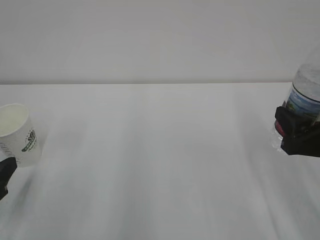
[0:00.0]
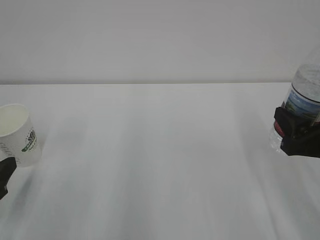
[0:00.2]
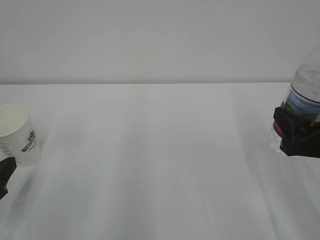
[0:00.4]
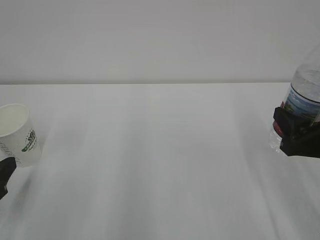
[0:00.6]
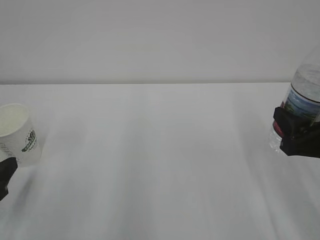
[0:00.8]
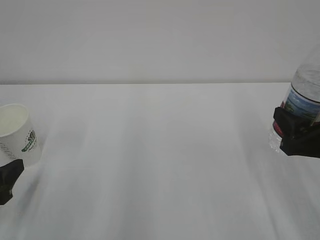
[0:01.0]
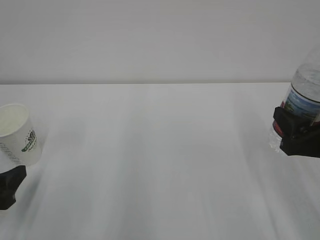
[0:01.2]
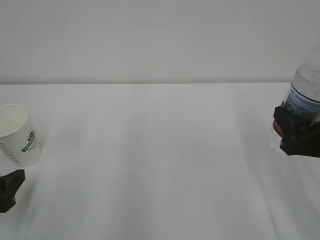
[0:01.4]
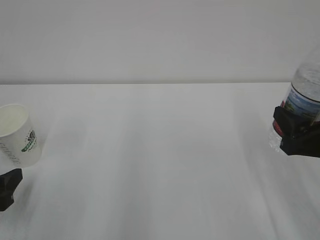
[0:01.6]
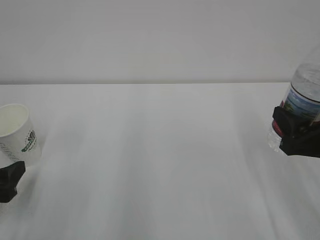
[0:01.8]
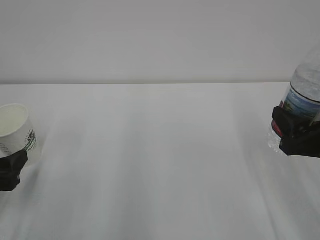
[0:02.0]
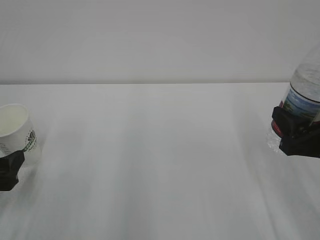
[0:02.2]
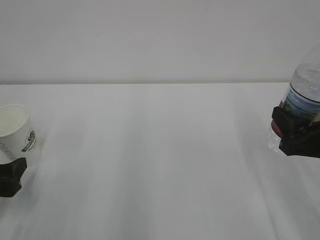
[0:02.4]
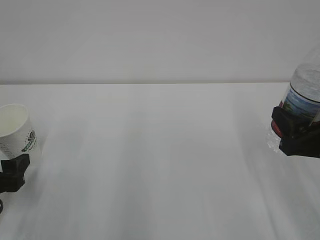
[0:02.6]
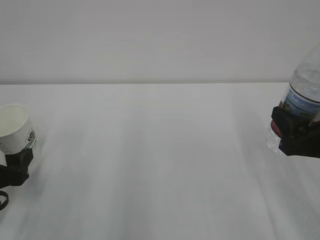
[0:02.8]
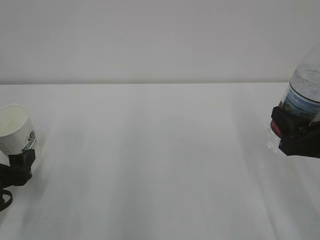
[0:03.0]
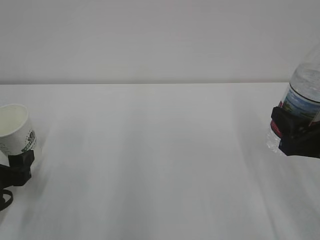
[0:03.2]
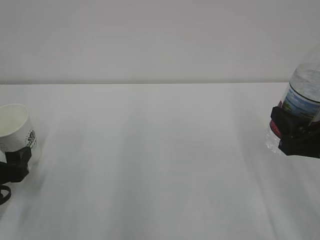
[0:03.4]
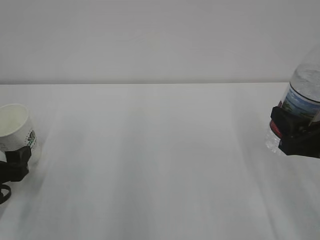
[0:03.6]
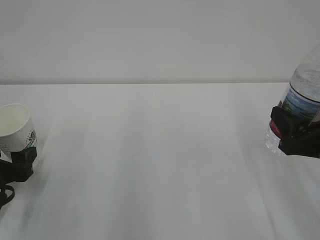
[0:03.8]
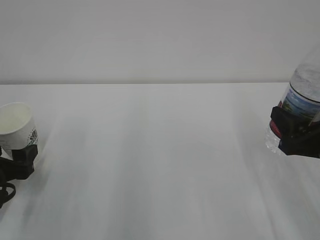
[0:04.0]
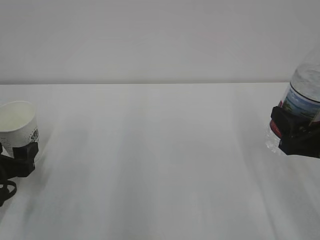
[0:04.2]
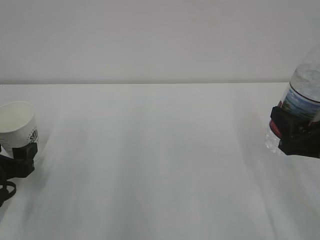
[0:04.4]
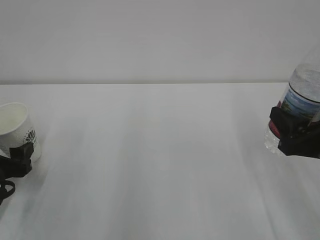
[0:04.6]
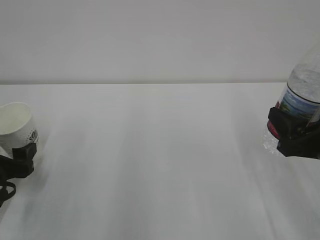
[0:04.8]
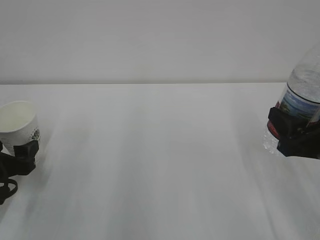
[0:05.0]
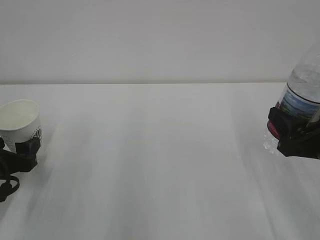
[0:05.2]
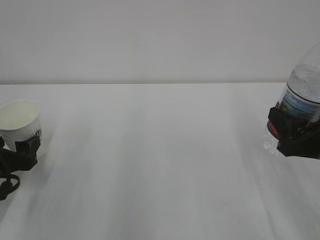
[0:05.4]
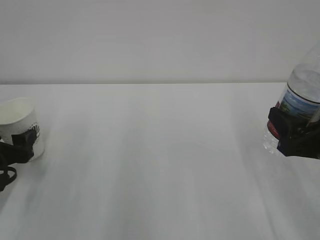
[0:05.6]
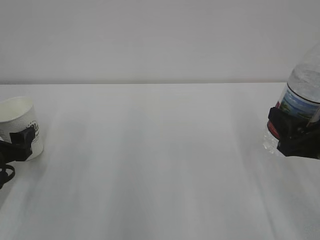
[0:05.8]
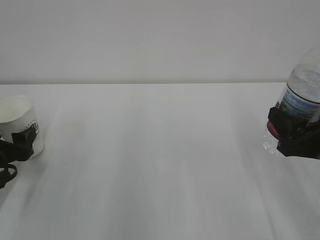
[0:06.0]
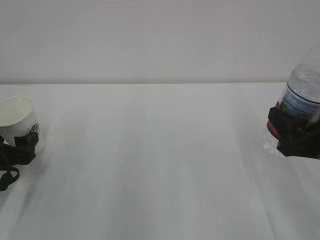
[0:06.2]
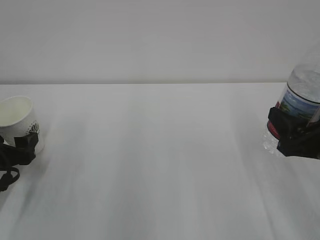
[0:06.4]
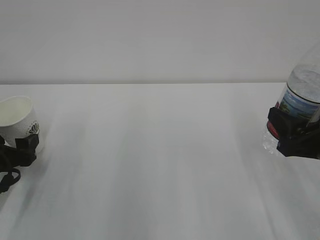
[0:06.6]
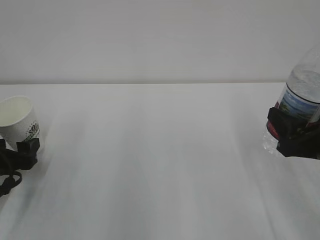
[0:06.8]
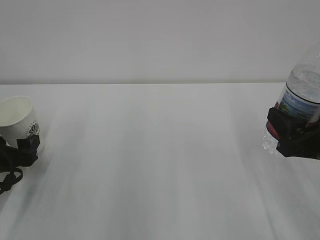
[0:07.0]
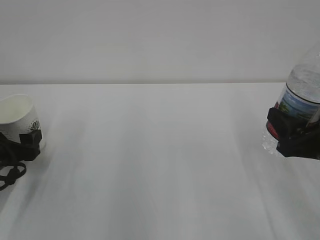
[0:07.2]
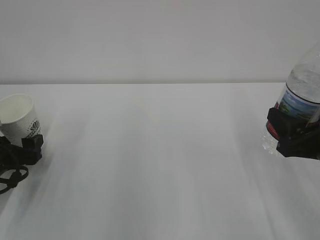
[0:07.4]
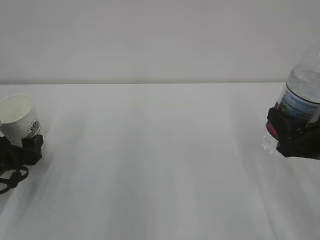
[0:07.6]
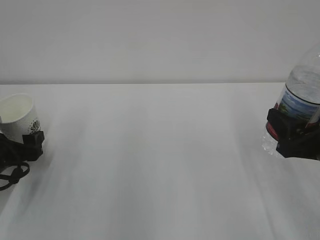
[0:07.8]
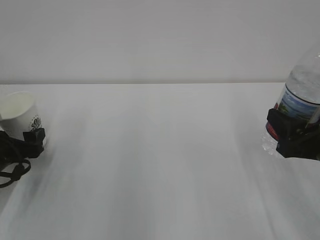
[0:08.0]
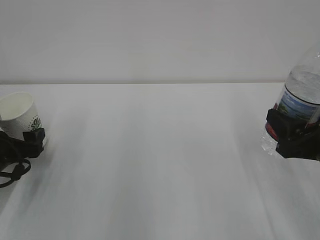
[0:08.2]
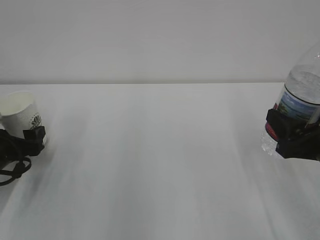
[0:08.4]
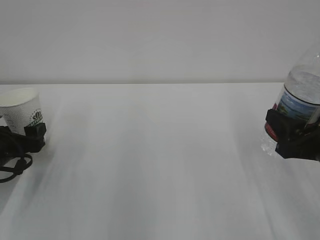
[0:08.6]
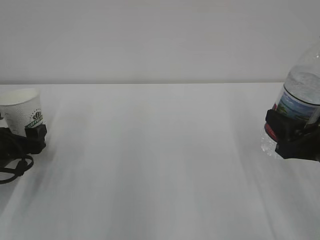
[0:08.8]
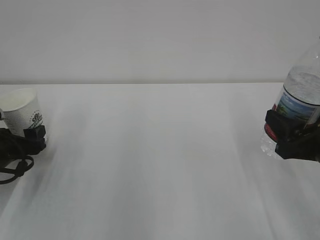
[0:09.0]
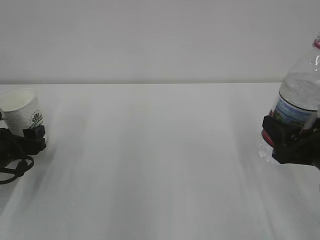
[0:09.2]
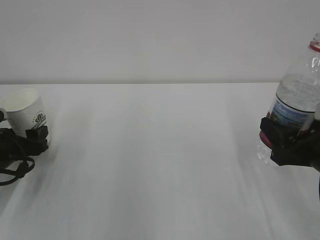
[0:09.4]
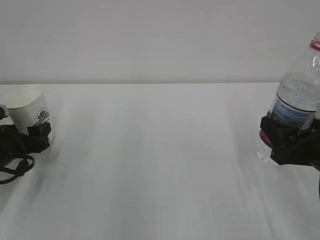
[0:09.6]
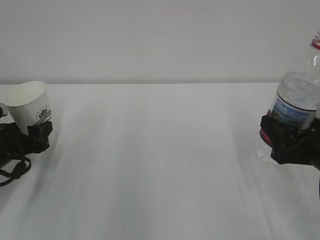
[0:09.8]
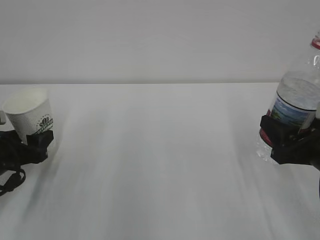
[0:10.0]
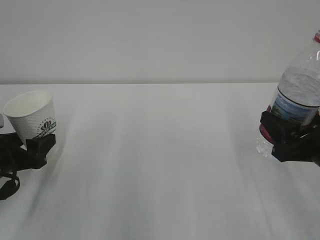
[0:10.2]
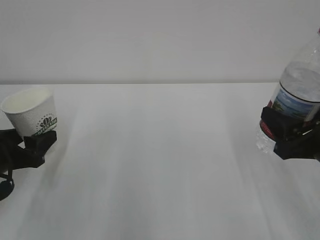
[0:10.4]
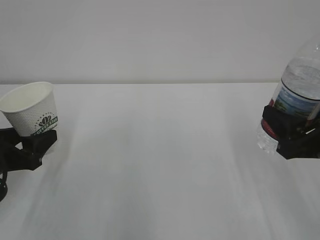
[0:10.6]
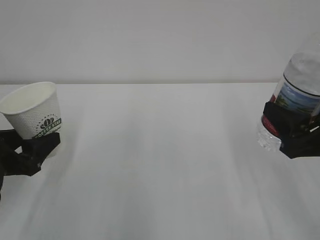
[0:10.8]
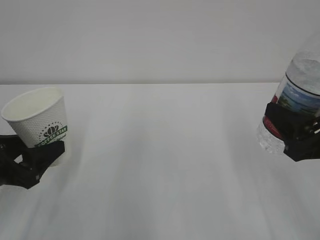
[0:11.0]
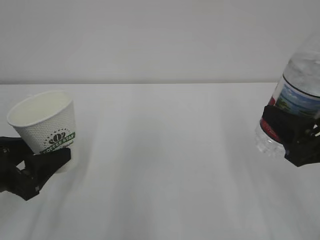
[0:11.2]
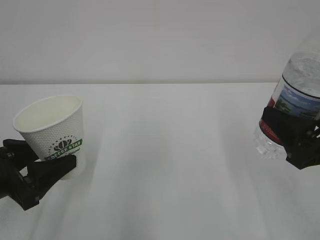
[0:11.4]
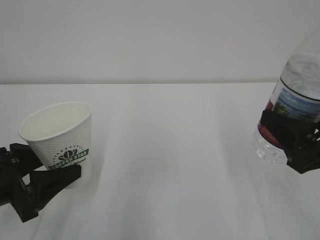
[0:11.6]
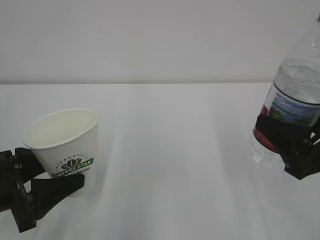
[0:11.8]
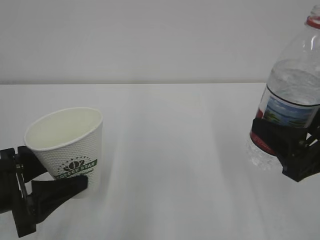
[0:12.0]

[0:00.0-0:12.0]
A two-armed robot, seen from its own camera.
0:00.0 to 0:03.0: The grippers move only a little.
0:03.0 to 0:06.0: The grippers stay close to where they were, moving slightly.
0:06.0 to 0:09.0: There are only small adjustments of the grippers.
0:09.0 to 0:10.4: The left gripper ends up some 5 cm from where it was.
0:10.4 to 0:12.0: The right gripper ends up about 5 cm from where it was, while the left gripper heads backward, covering some 5 cm.

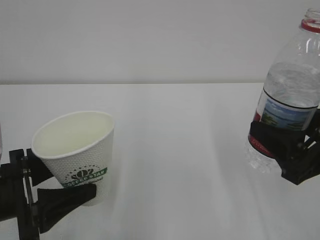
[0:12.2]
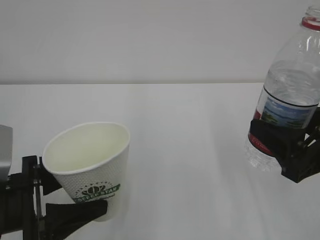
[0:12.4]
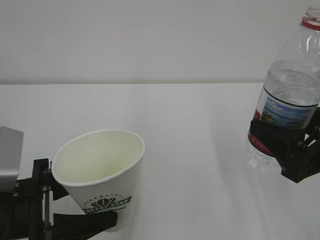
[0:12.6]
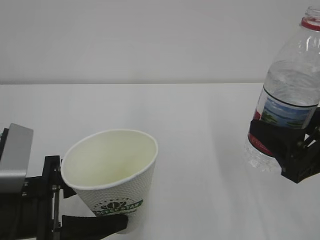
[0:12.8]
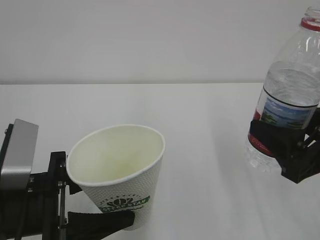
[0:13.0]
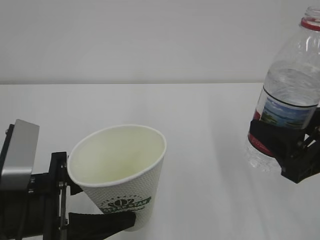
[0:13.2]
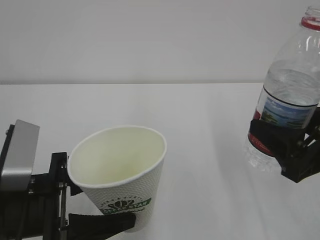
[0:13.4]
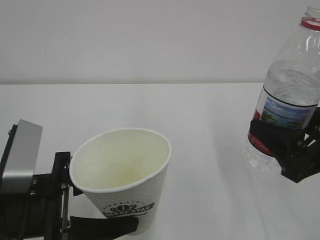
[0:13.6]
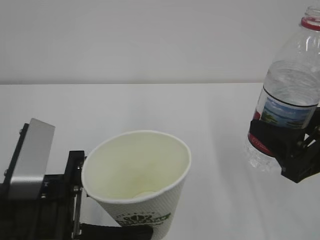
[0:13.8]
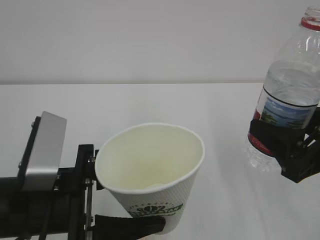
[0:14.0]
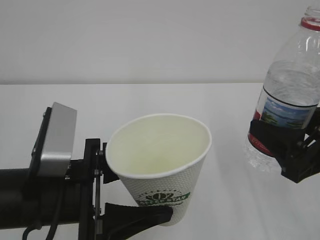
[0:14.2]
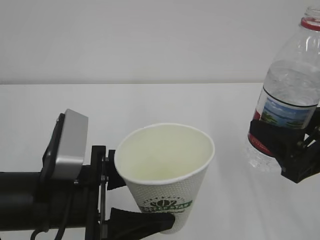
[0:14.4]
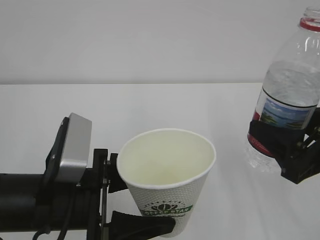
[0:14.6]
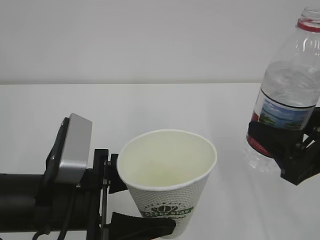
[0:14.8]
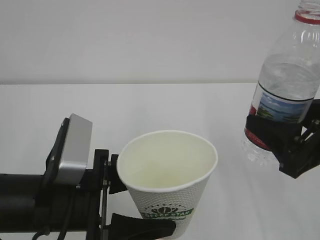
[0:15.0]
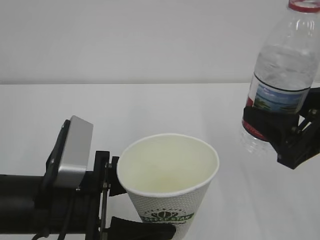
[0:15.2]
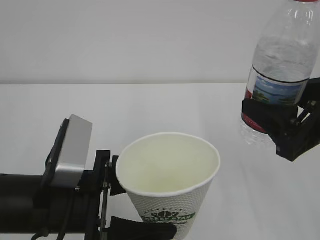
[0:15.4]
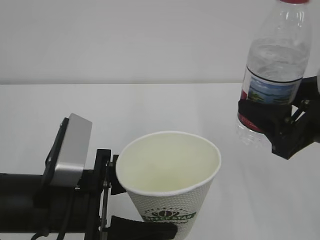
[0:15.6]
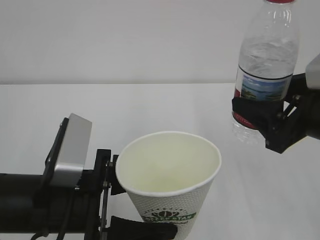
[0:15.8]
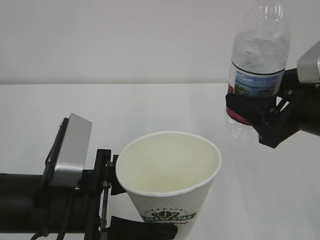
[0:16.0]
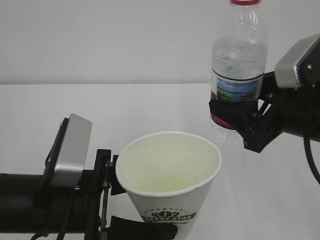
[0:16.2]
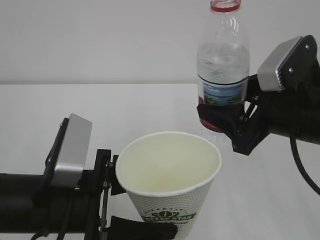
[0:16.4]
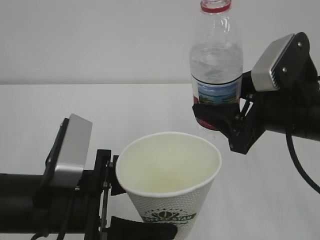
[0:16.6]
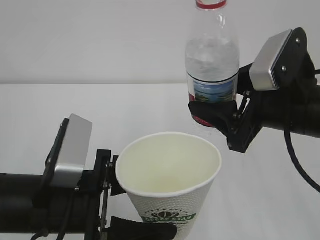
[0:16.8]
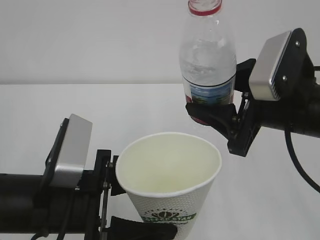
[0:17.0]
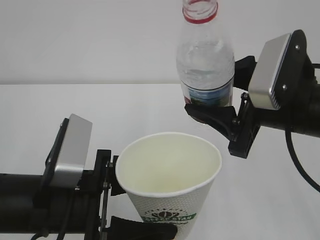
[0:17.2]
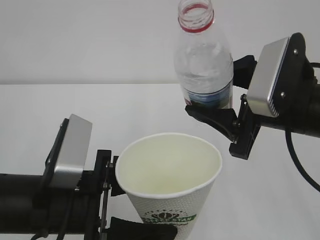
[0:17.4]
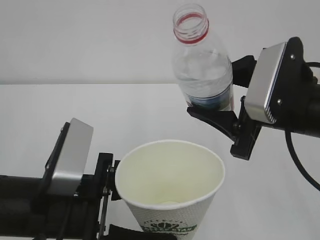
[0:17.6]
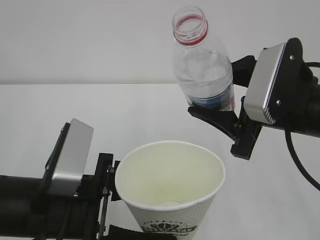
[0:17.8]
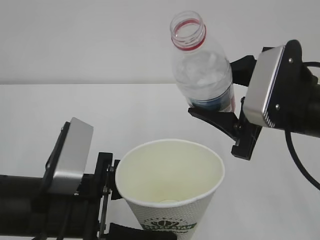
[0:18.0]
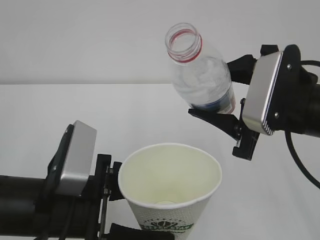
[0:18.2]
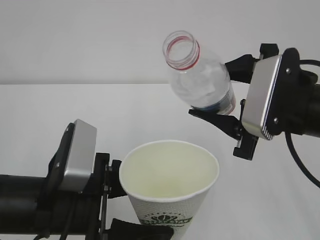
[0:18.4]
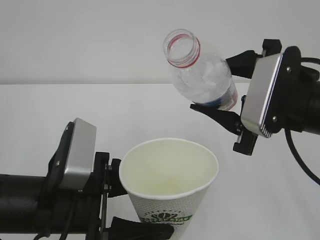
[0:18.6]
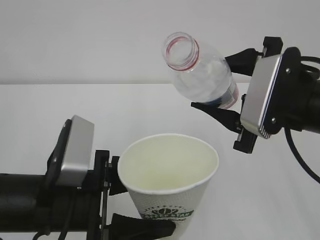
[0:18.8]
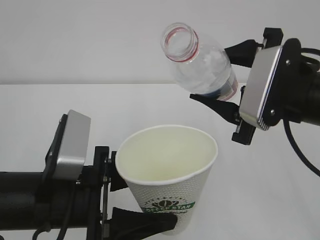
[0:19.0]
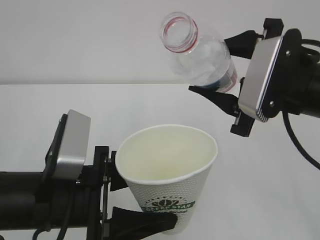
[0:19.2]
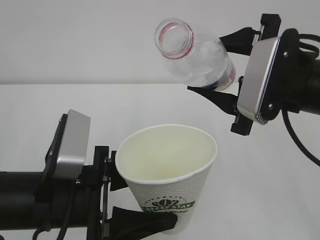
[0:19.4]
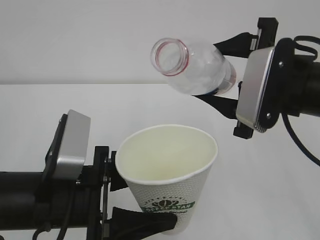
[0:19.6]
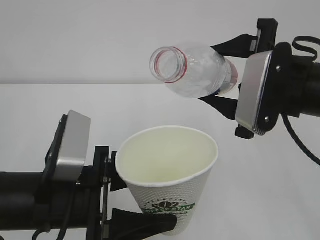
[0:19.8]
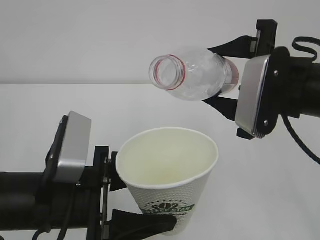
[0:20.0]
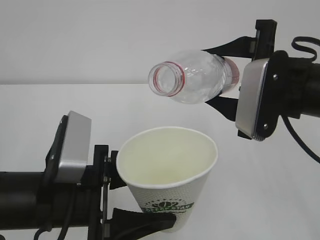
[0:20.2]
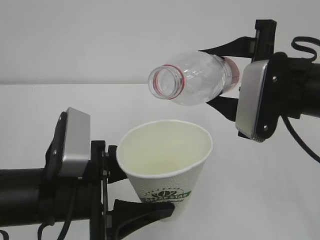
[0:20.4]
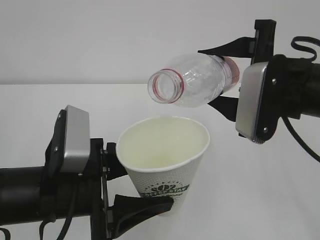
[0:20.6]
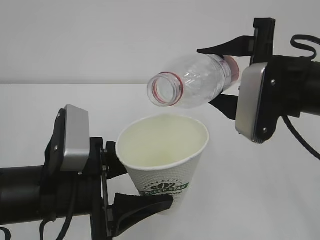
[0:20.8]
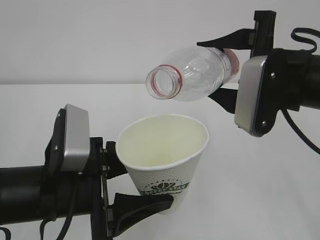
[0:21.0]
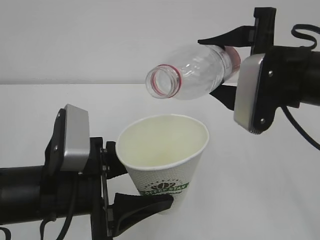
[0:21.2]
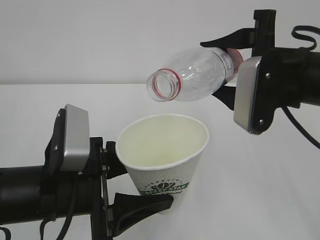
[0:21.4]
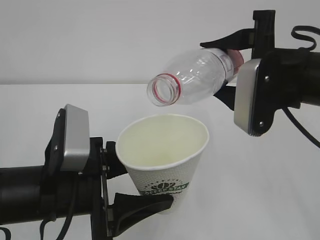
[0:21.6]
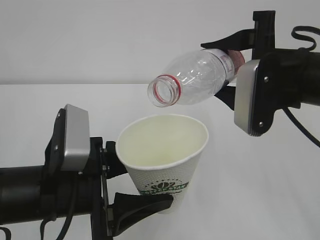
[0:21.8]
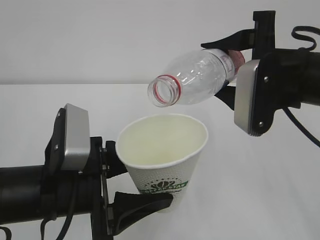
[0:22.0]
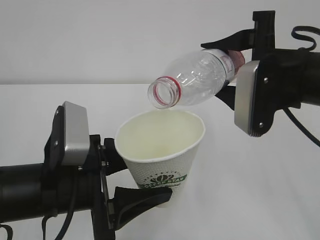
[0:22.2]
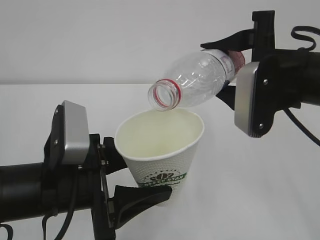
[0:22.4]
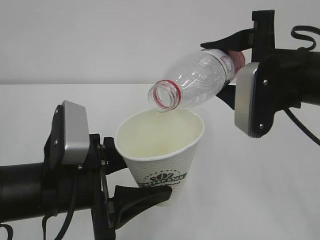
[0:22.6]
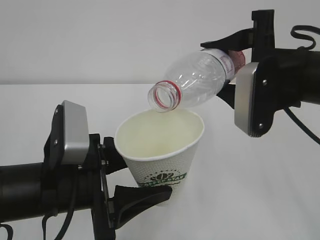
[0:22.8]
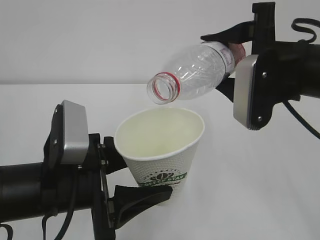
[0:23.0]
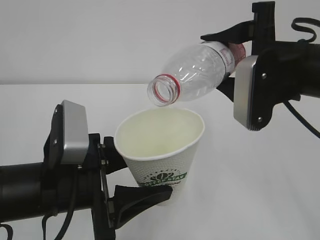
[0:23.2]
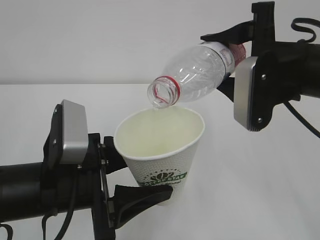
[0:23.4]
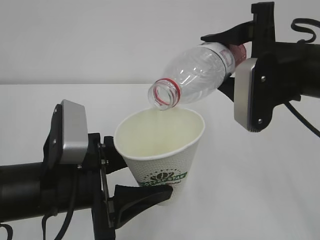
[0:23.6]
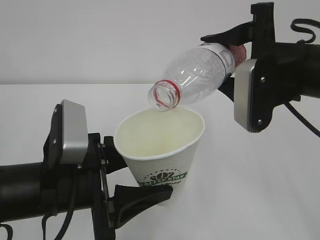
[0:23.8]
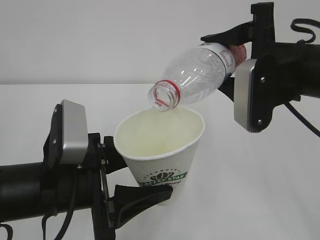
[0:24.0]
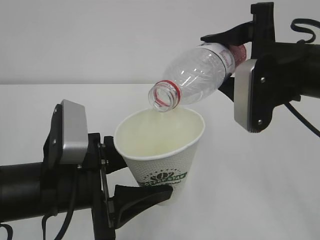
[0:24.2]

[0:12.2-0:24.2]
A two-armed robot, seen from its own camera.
0:12.2 to 0:13.8: The left gripper shifts approximately 5 cm to the right.
0:13.8 to 0:15.2: The grippers make only small movements.
0:15.2 to 0:16.6: The right gripper shifts by roughly 5 cm.
0:21.2 to 0:22.6: The grippers make only small movements.
0:22.6 to 0:24.2: Both grippers stay about where they are.
